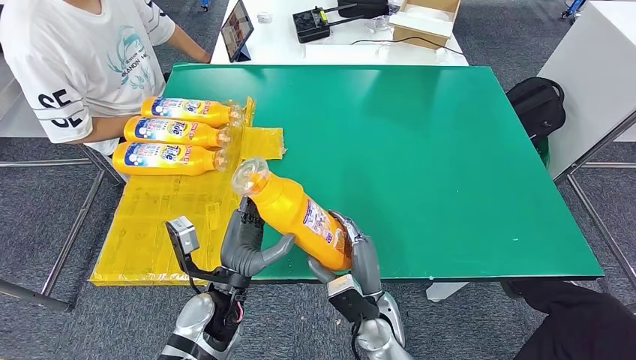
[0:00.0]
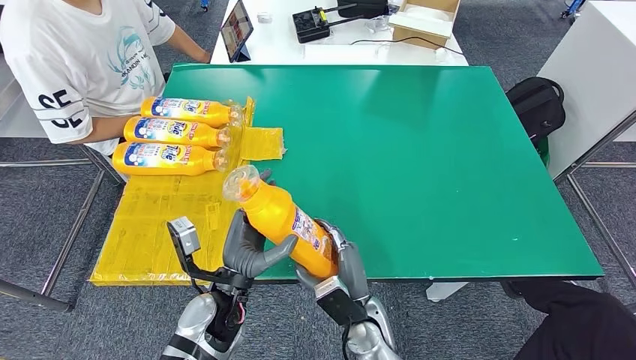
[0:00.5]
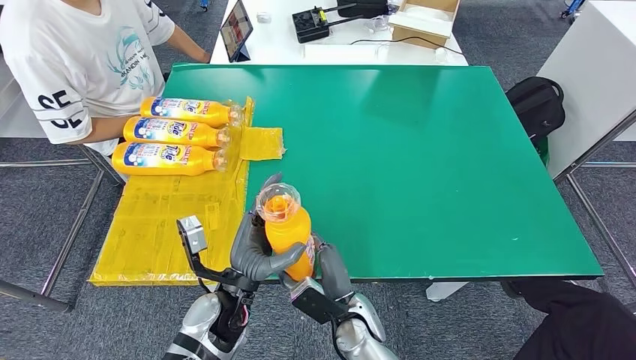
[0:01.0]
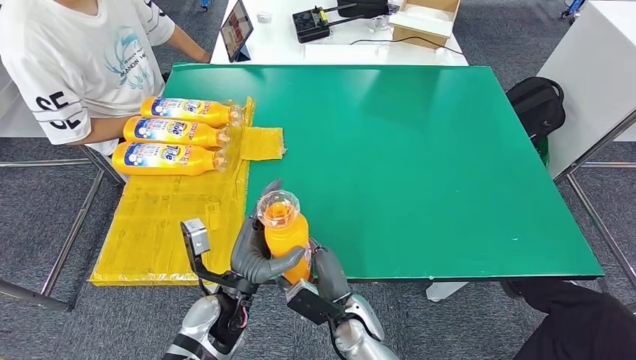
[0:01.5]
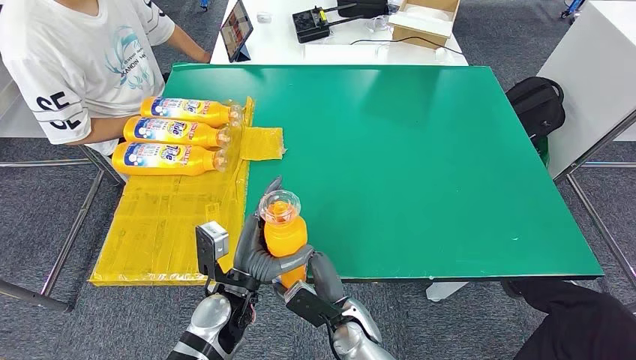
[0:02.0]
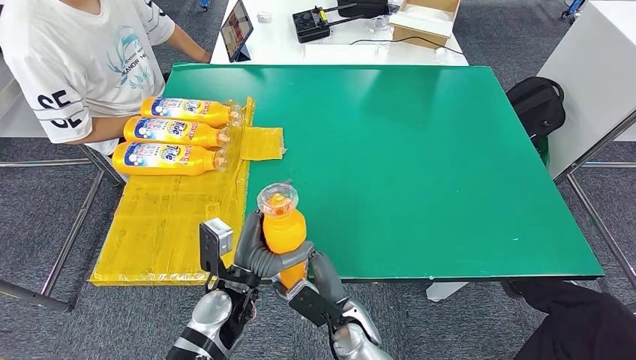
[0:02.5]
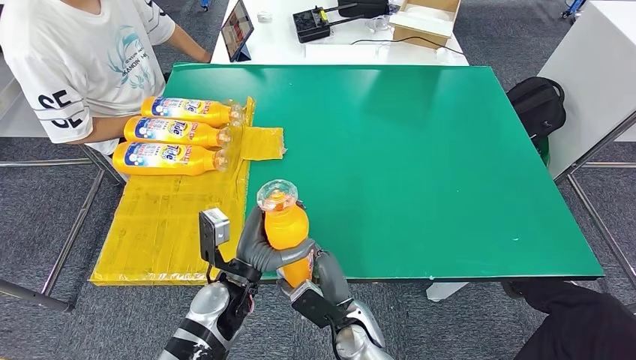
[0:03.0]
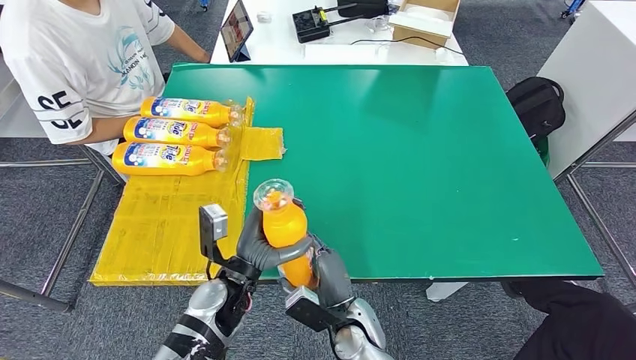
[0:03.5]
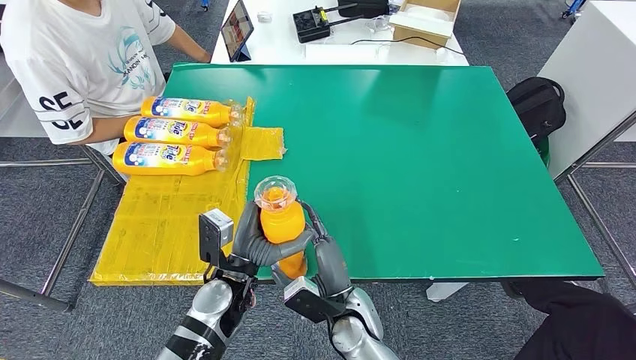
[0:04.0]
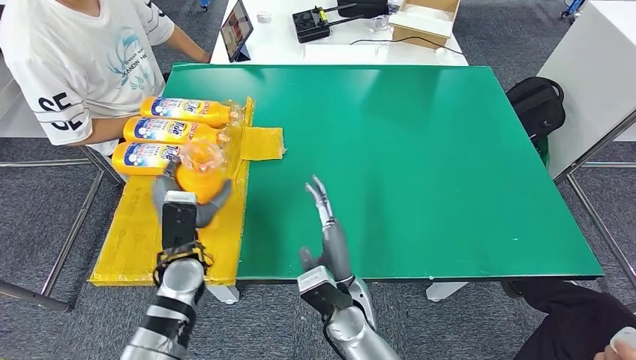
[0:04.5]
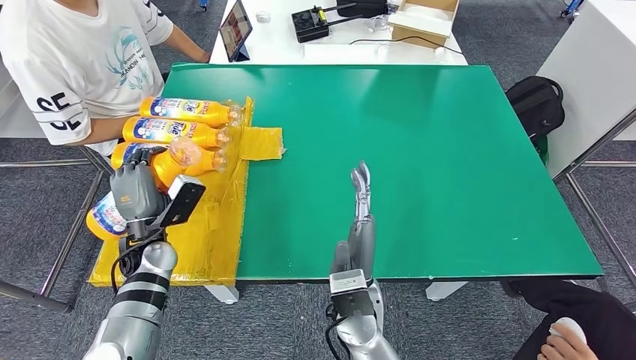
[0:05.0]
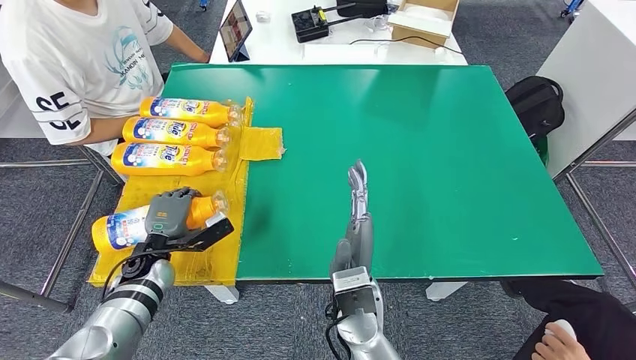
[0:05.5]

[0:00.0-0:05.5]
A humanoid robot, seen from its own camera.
Step, 0:01.0 to 0:05.5: Flip the fast-moving consumer goods bottle to the front side.
0:00.0 to 0:02.0: The right hand moves to the left, about 5 cm.
0:02.0 to 0:03.5: There are only small adjustments of the hands.
0:03.5 to 0:05.5: The left hand travels to the left and forward by about 20 cm, while the right hand heads upward, covering about 10 cm.
